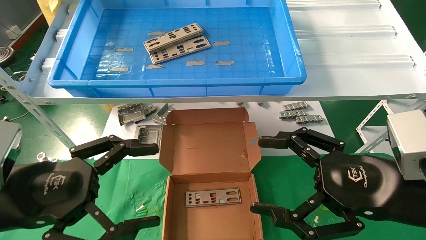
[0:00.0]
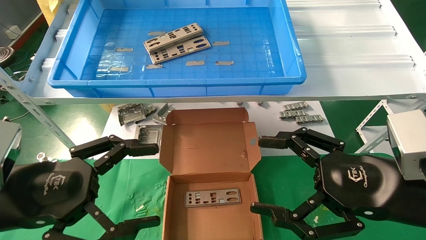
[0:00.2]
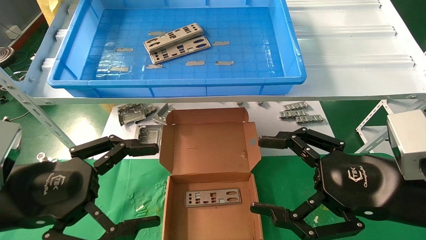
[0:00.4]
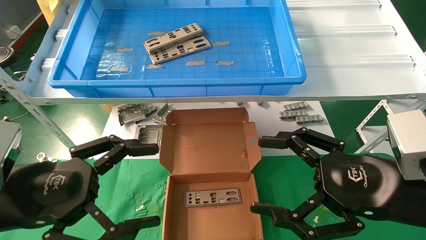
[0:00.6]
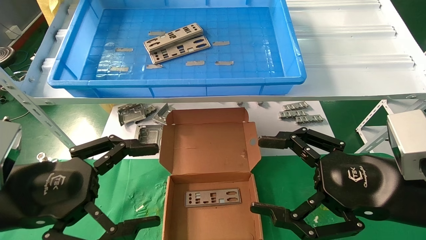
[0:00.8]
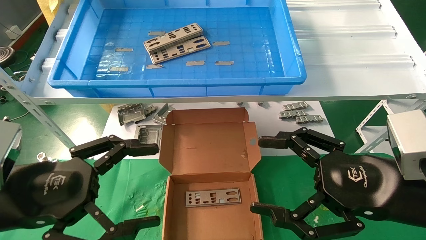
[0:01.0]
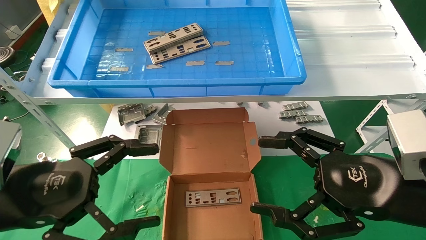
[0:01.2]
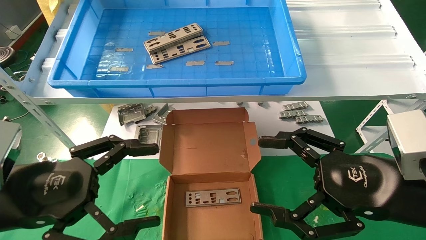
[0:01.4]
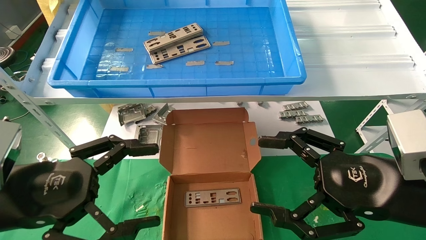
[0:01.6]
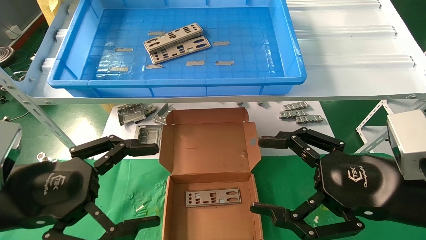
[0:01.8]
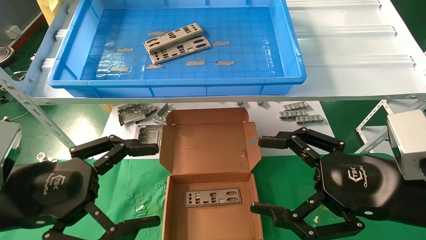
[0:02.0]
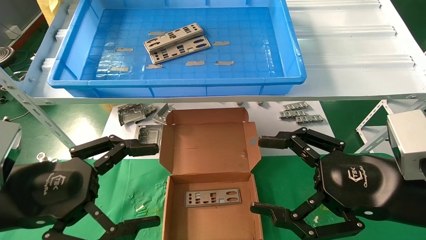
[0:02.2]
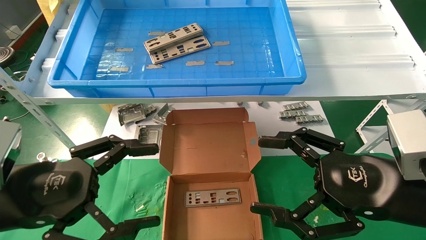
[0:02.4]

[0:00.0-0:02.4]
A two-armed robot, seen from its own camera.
Task of the whole recording: pick up the parts on the tray and put them in the cardboard box.
0:00.0 to 0:02.4: The two grippers keep their place.

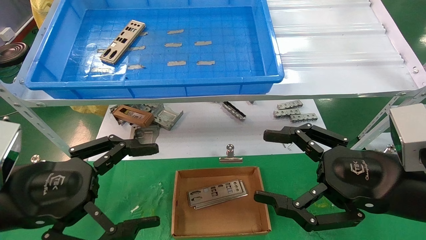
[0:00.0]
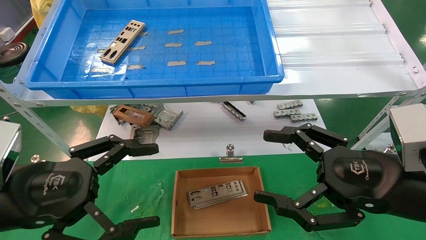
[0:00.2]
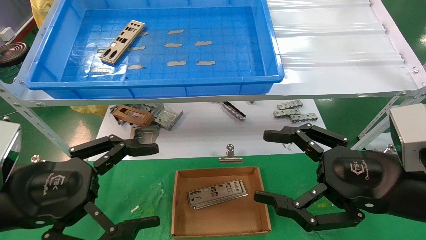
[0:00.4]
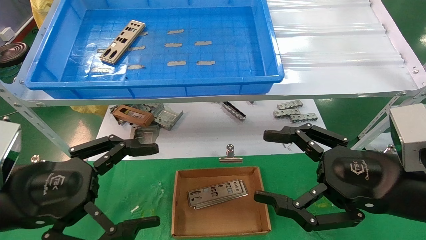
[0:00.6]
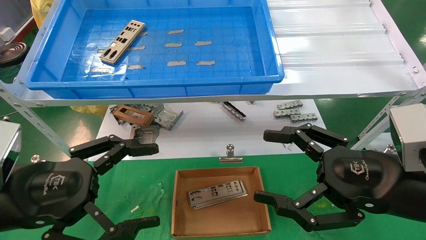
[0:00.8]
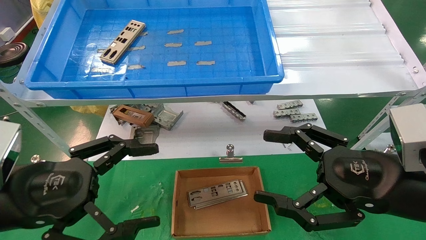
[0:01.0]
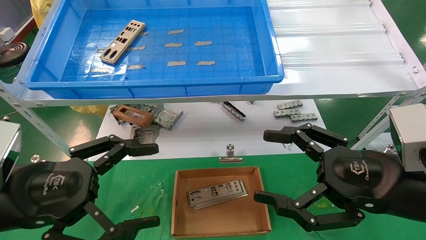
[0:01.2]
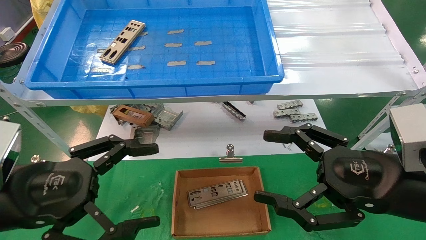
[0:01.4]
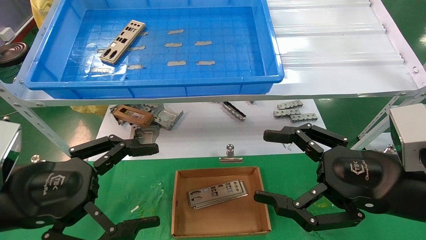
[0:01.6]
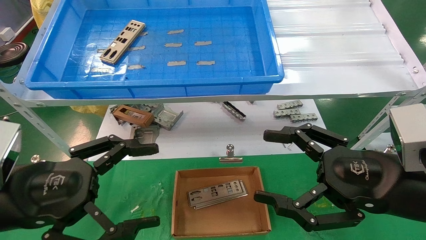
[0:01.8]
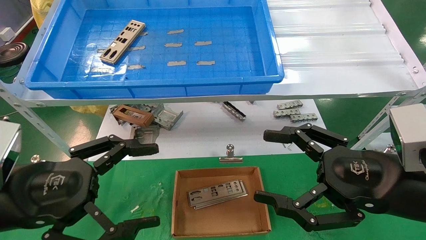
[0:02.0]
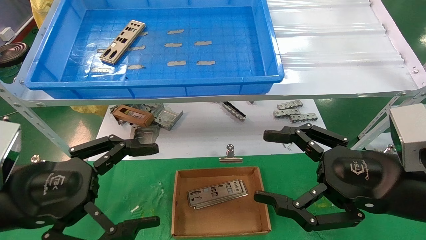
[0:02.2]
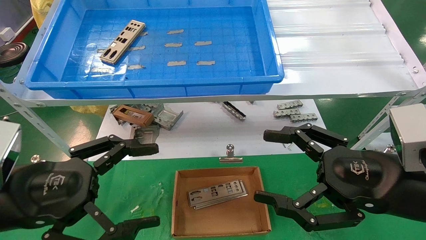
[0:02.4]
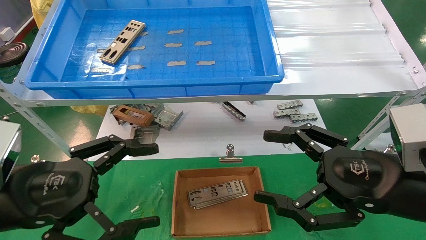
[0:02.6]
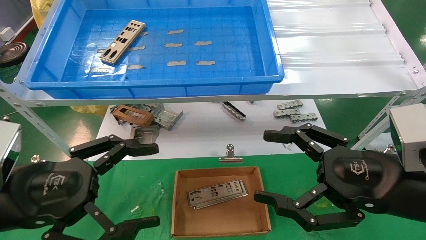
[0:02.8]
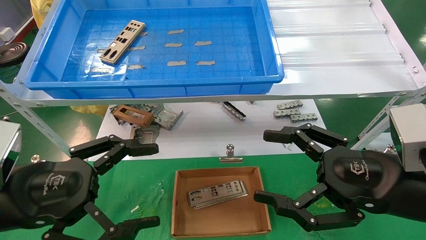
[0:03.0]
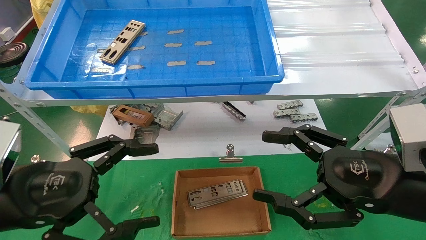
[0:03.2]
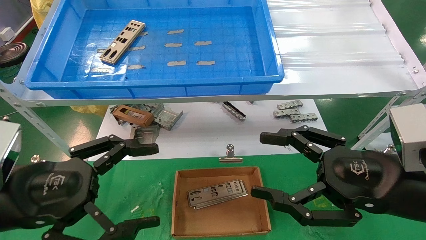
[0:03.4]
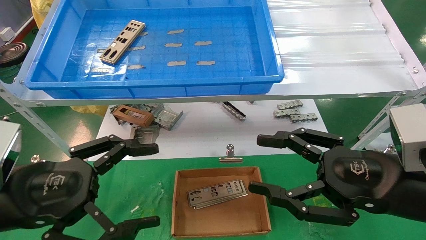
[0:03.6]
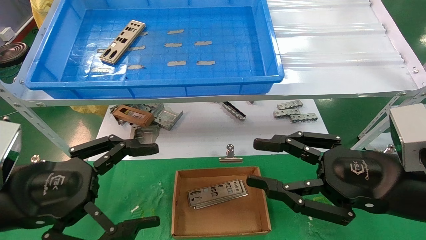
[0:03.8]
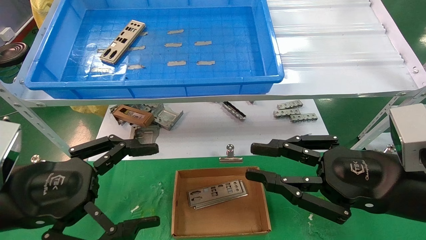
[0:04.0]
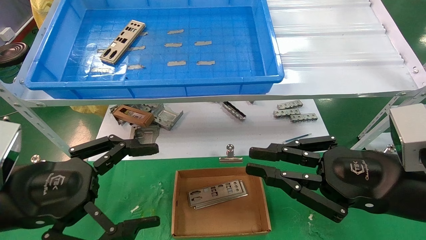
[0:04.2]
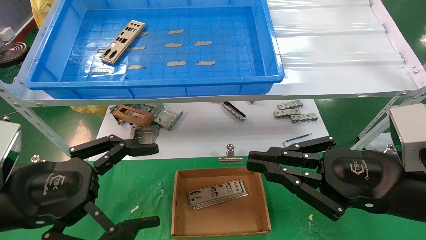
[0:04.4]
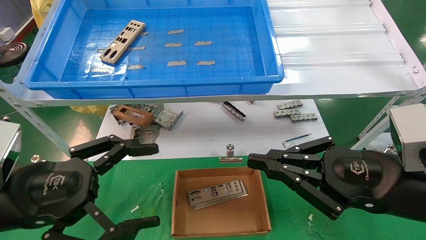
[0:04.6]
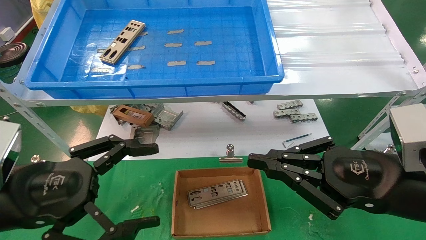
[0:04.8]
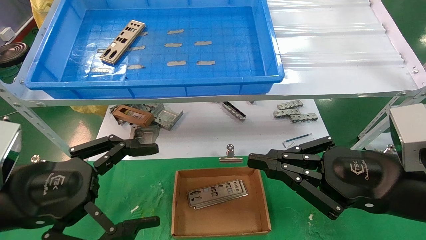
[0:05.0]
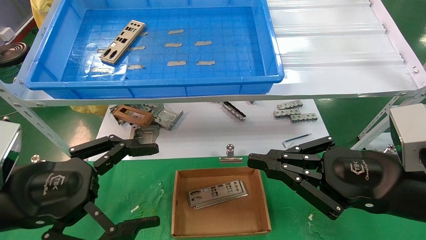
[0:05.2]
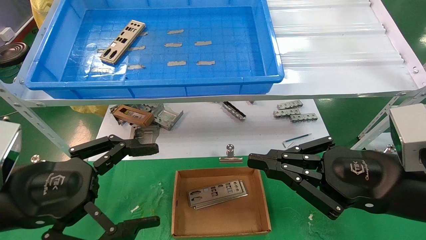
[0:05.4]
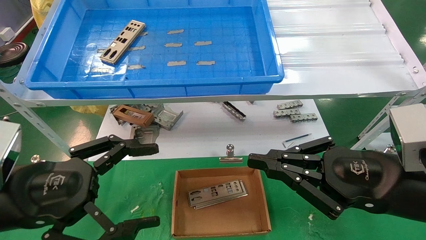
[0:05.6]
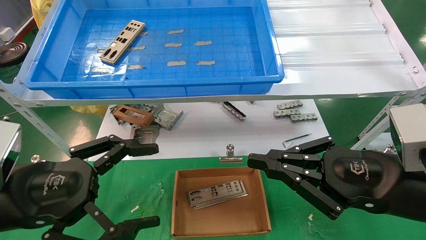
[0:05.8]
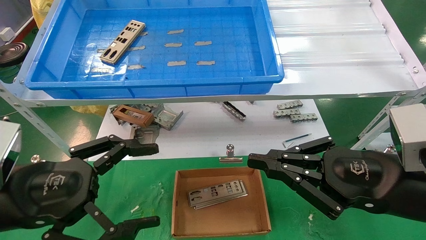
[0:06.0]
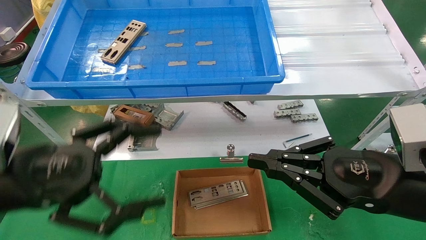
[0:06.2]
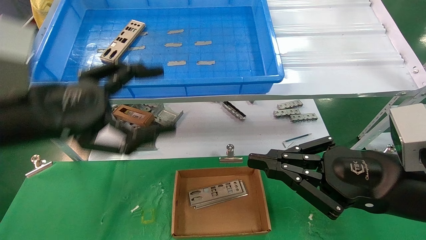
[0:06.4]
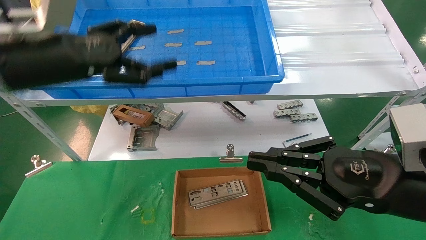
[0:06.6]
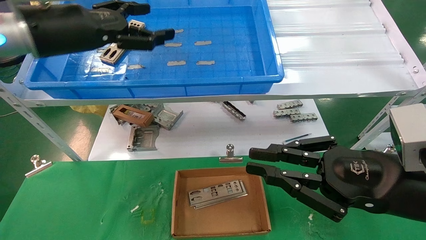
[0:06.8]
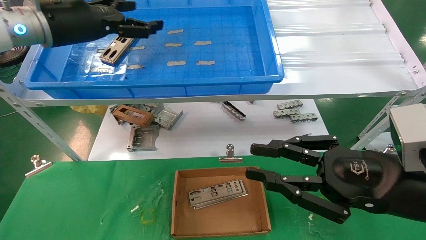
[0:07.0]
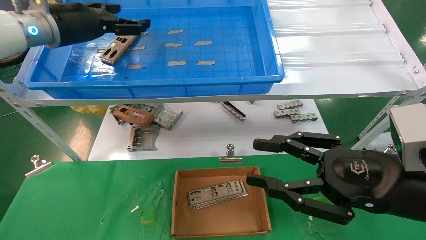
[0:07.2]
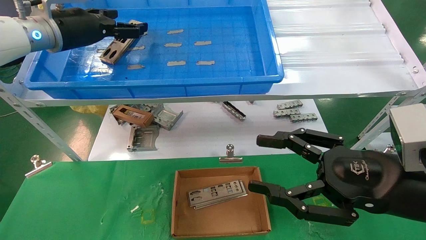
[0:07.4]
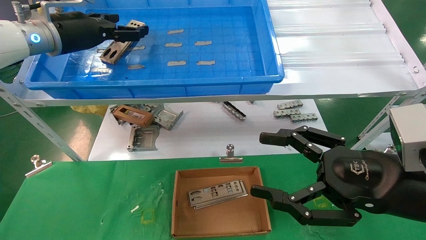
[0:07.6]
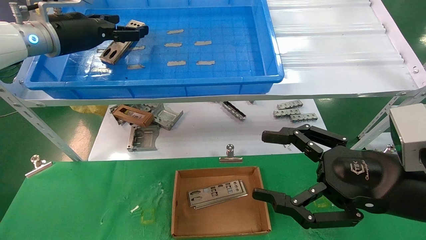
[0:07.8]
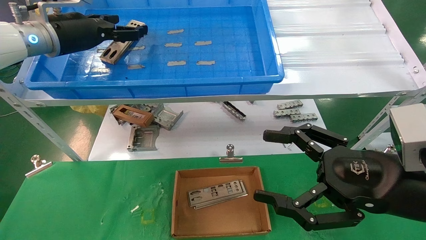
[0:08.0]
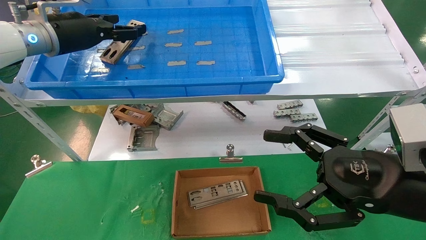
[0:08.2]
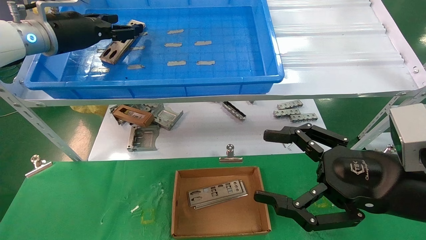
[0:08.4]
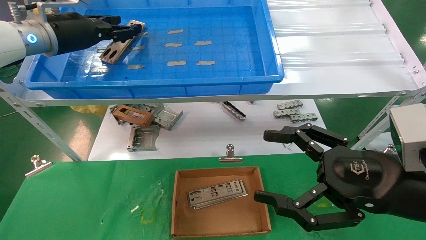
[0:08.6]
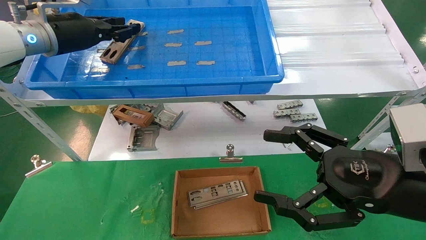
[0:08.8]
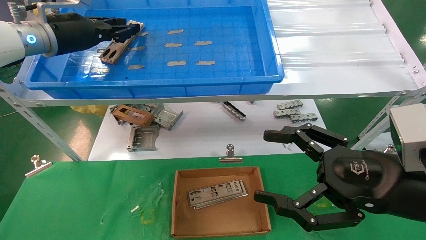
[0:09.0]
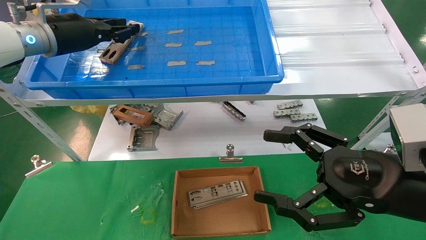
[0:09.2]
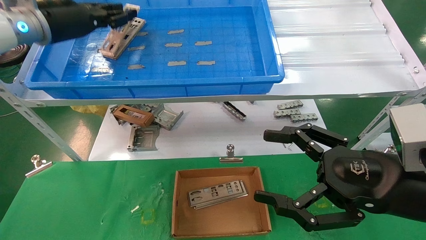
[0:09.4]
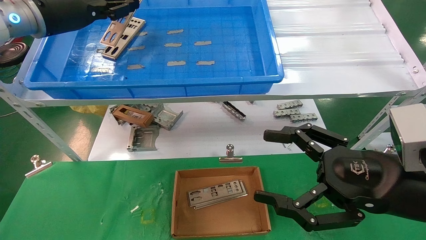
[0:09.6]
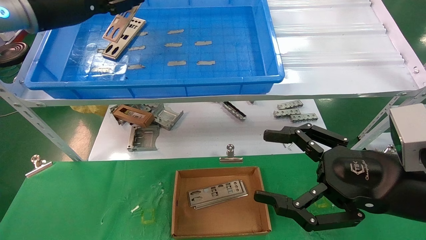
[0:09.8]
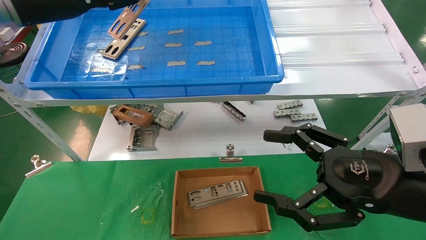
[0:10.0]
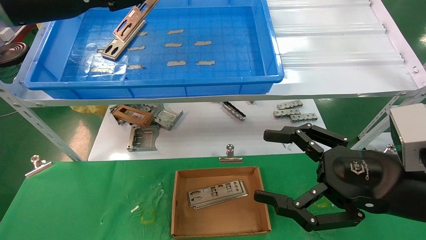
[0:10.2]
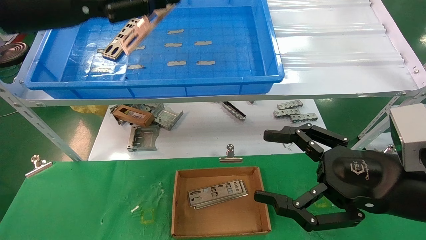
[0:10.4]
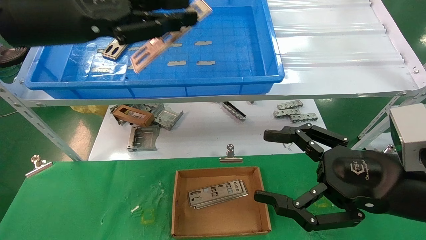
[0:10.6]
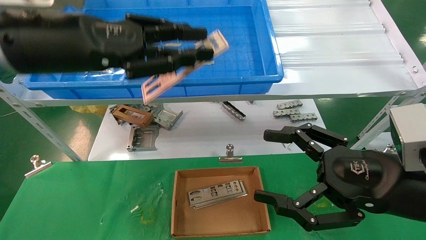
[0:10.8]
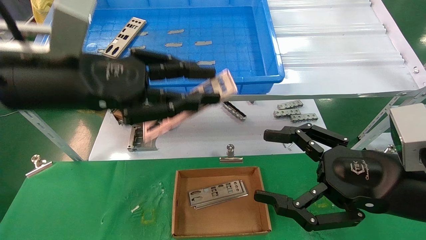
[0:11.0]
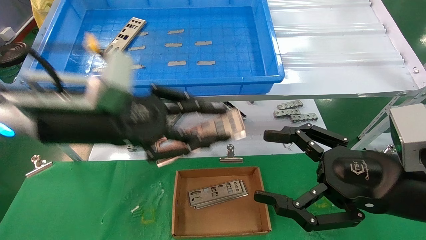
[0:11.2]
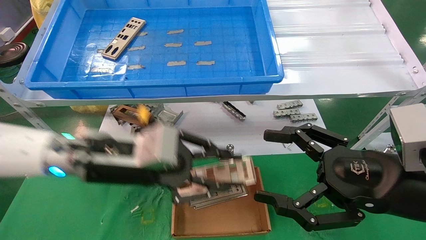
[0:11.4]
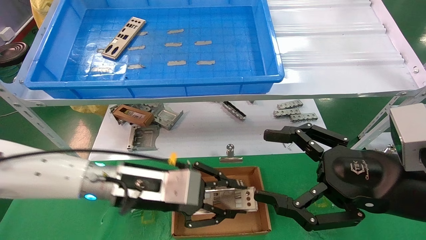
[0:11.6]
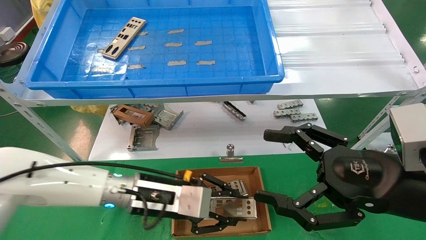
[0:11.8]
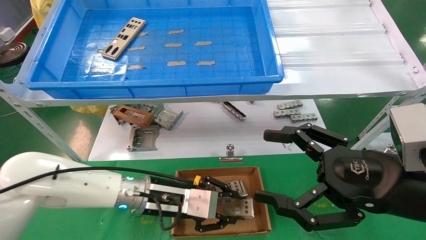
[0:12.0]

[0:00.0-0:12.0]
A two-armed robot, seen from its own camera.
Task of the whole recording: pick up the parts on the tray and put them in the cardboard box.
Step, 0:06.4 to 0:09.2: Pick up the IO bracket from the container box.
0:00.0 to 0:03.0: The two grippers keep their place.
0:03.0 to 0:04.4: The right gripper closes.
0:04.4 to 0:06.0: Neither gripper changes place.
0:06.0 to 0:07.6: The left gripper goes some 30 cm forward and upward; the right gripper opens its fingers.
0:07.6 to 0:09.0: The left gripper closes up.
0:09.0 to 0:10.4: The left gripper shifts some 10 cm backward.
0:10.4 to 0:12.0: The left gripper goes some 35 cm downward and to the right.

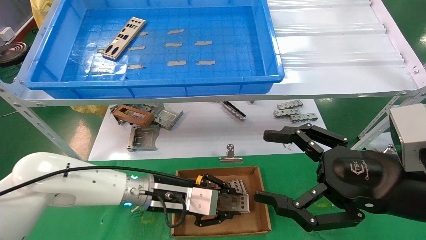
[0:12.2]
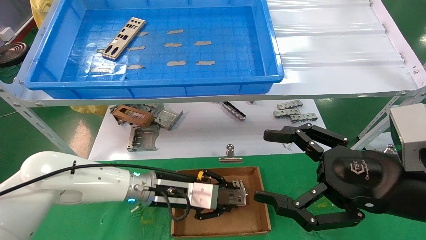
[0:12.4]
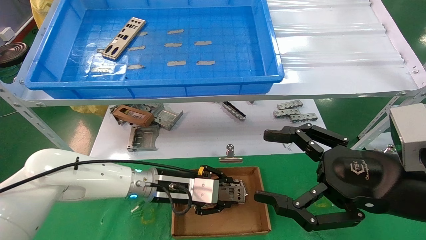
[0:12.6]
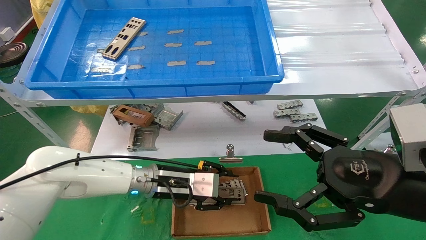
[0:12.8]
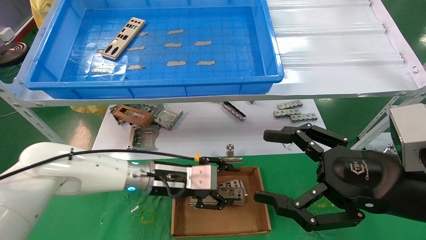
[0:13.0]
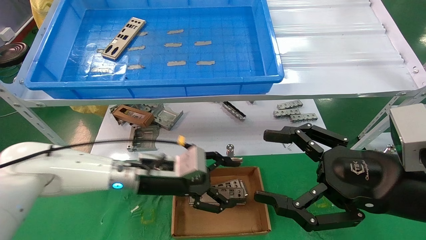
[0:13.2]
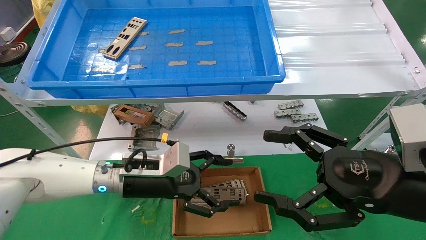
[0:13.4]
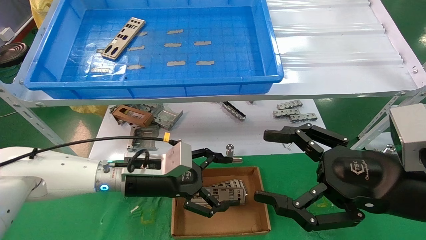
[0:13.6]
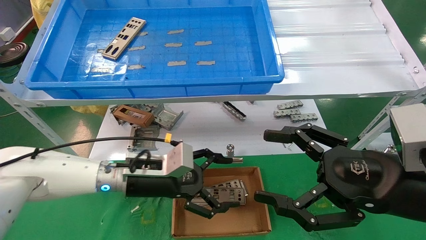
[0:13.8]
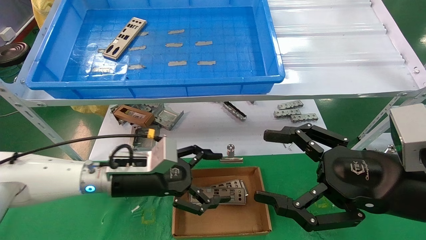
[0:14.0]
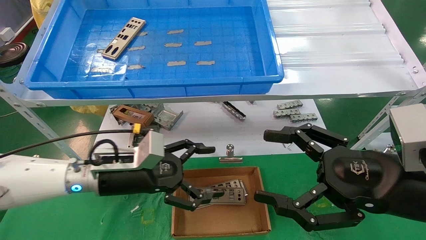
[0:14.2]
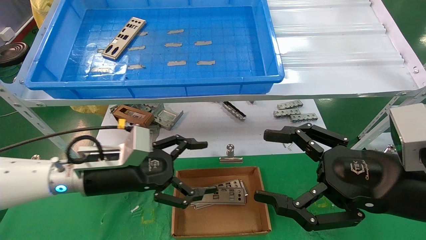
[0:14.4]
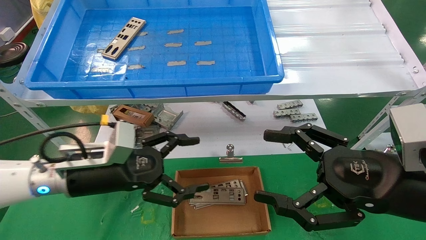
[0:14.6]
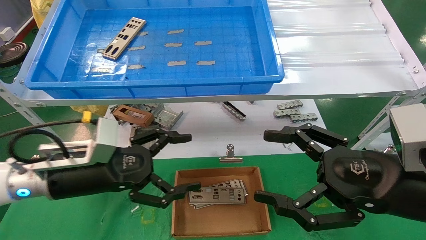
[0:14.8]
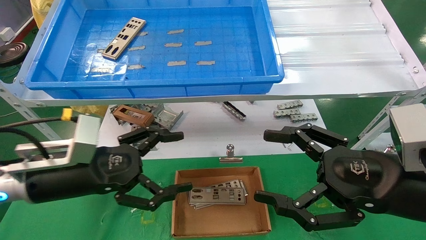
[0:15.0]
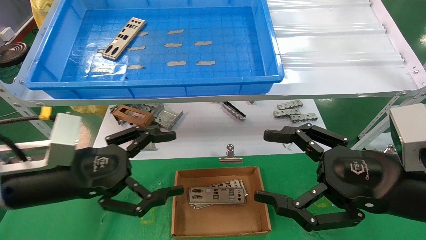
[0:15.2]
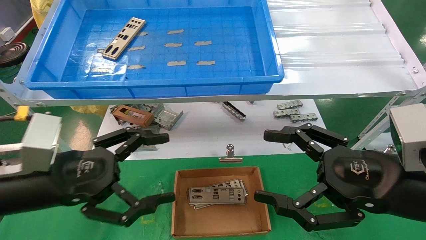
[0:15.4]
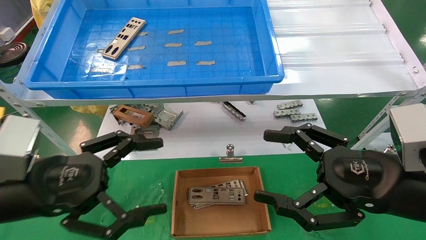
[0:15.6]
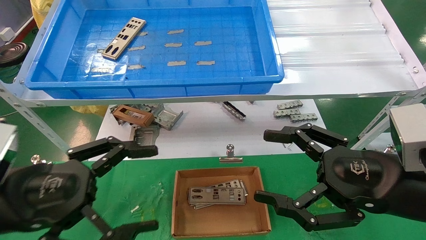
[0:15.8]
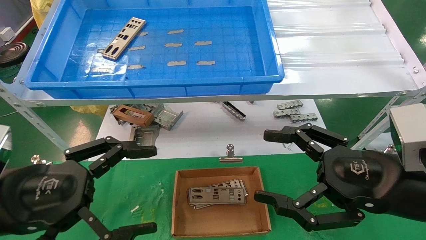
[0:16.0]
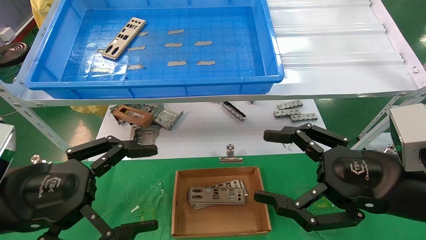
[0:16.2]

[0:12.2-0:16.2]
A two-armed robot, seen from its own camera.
Task of the whole recording: pick up the parts on the tray and put them in the cardboard box.
0:12.2 to 0:13.6: The left gripper opens.
0:13.6 to 0:14.8: The left gripper goes roughly 10 cm to the left and backward.
0:14.8 to 0:16.2: The left gripper heads backward, covering approximately 10 cm.
